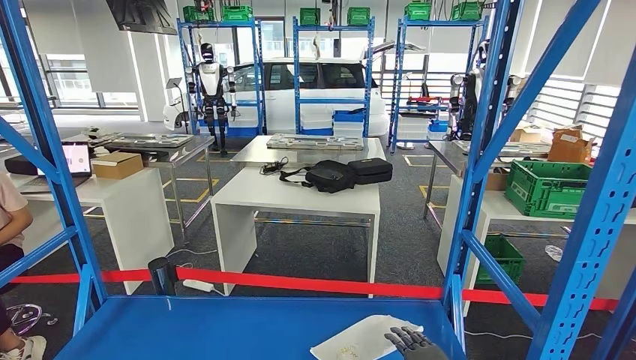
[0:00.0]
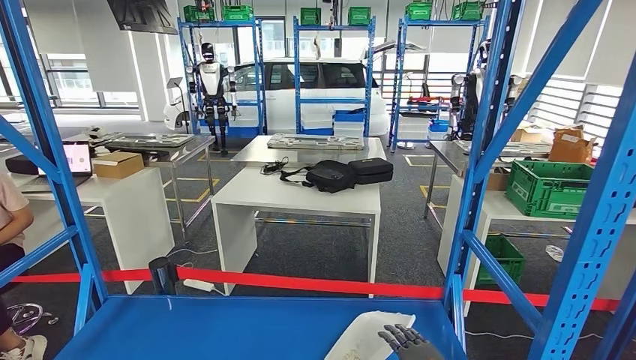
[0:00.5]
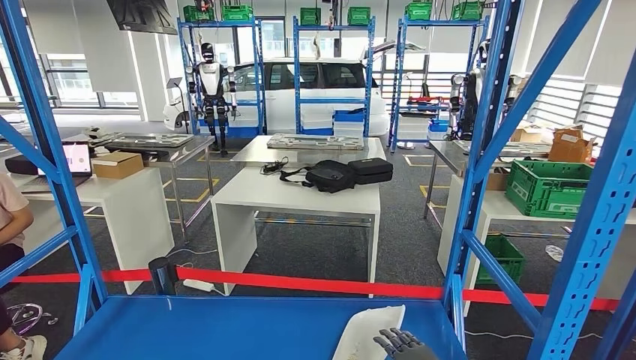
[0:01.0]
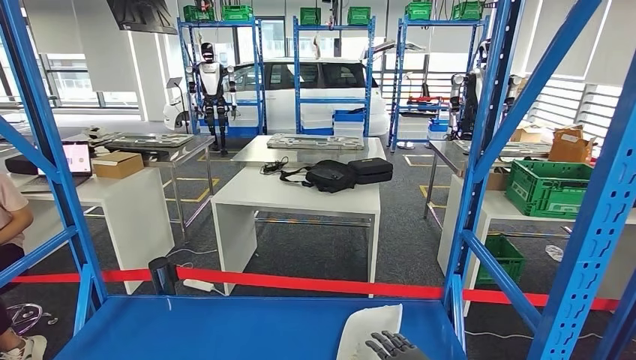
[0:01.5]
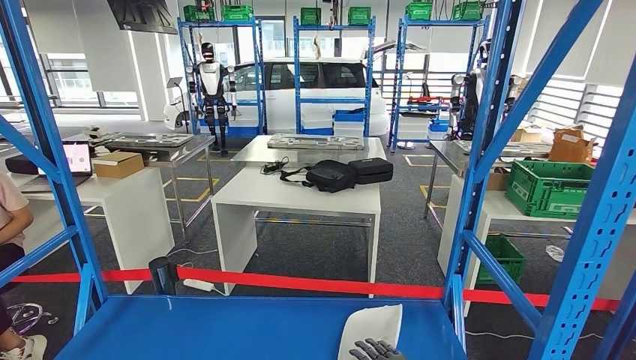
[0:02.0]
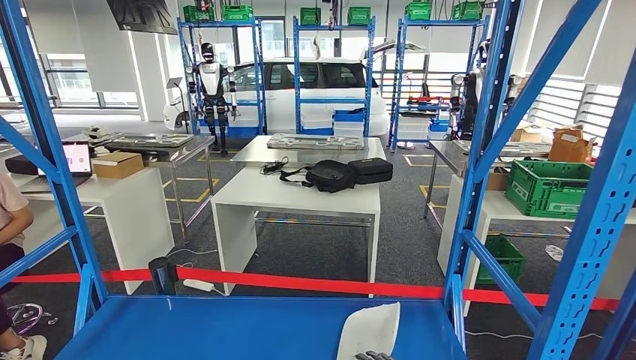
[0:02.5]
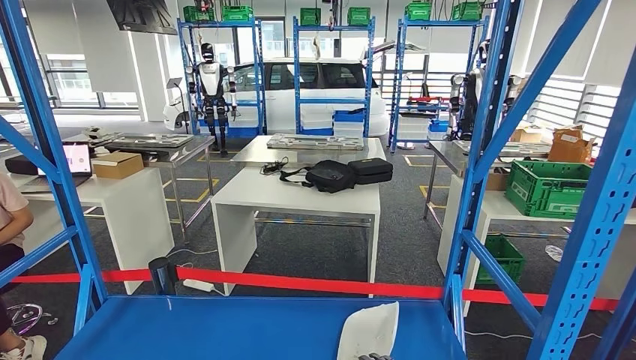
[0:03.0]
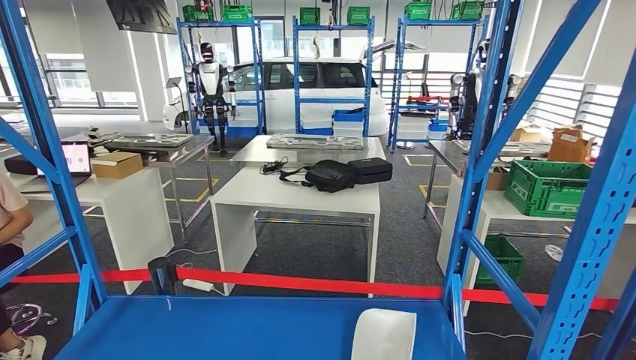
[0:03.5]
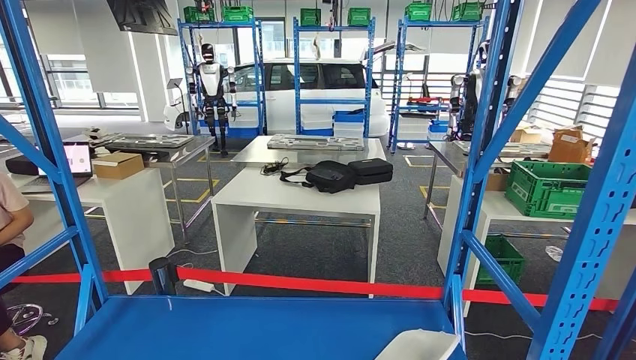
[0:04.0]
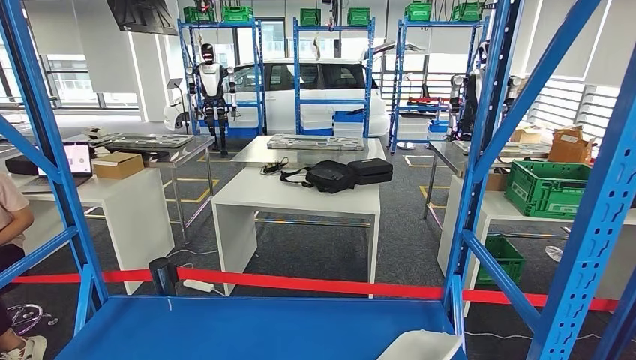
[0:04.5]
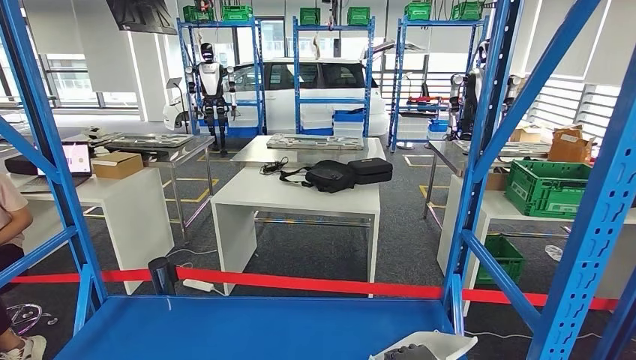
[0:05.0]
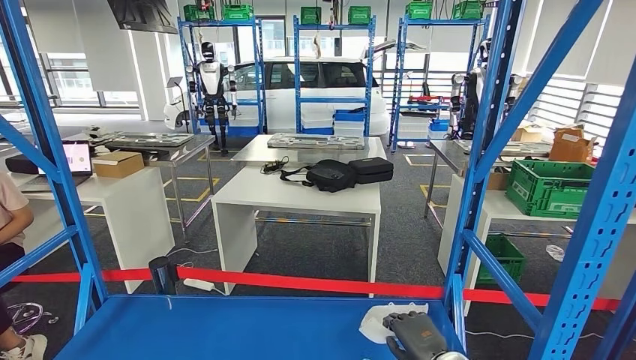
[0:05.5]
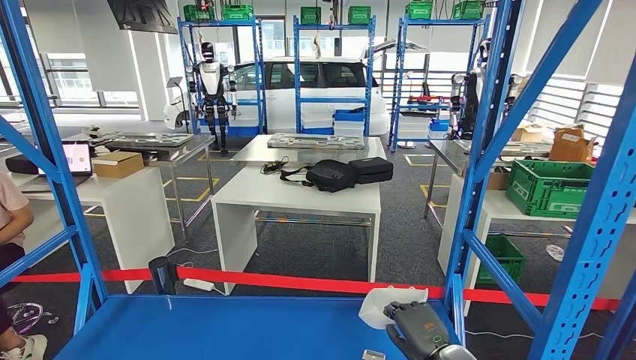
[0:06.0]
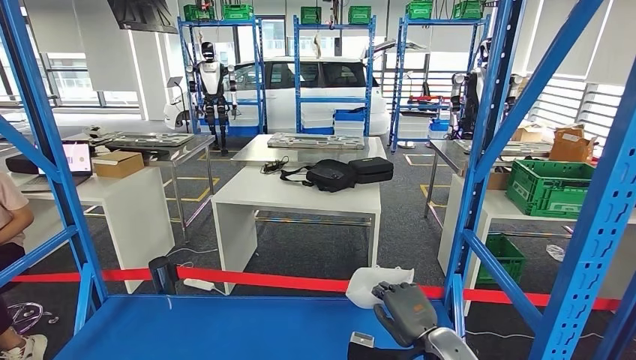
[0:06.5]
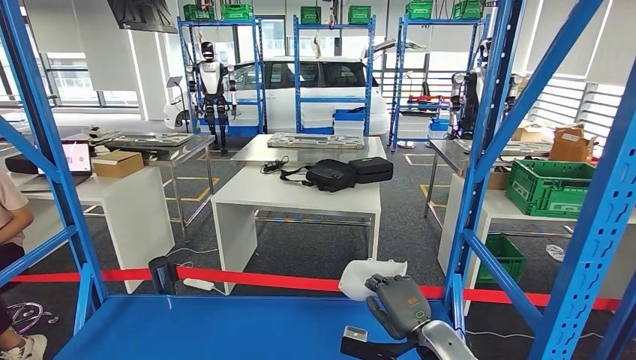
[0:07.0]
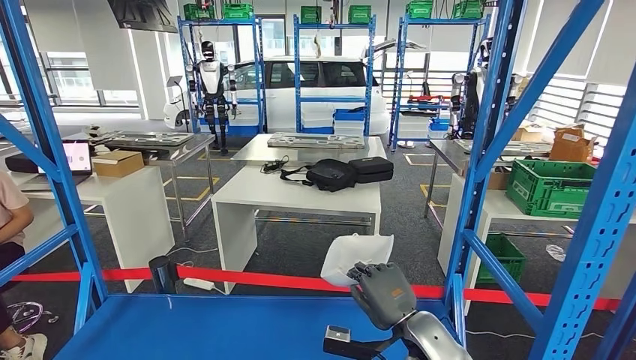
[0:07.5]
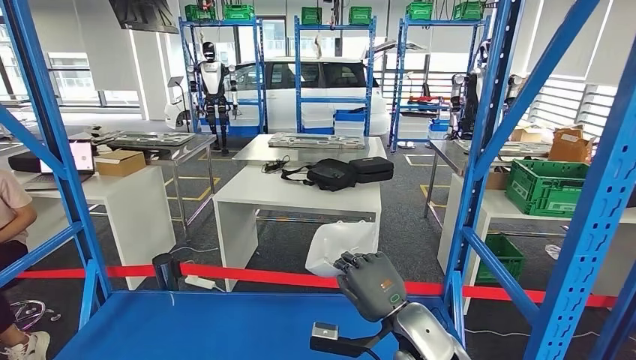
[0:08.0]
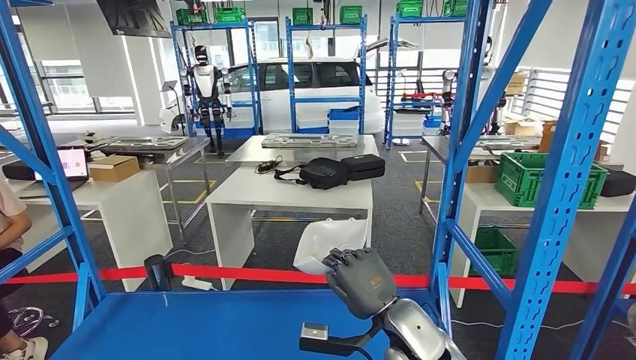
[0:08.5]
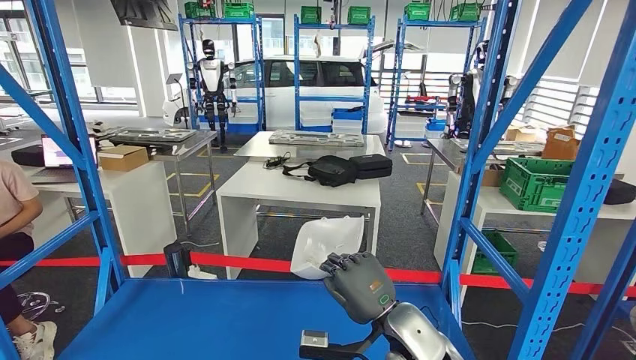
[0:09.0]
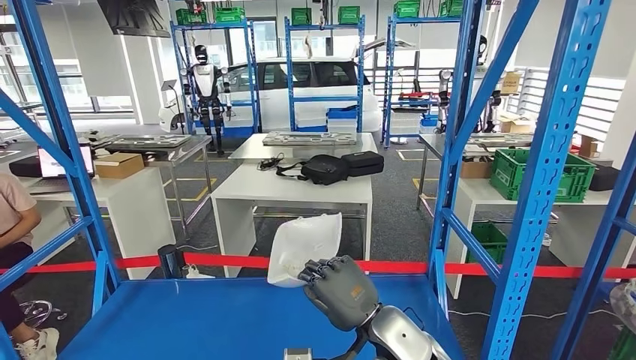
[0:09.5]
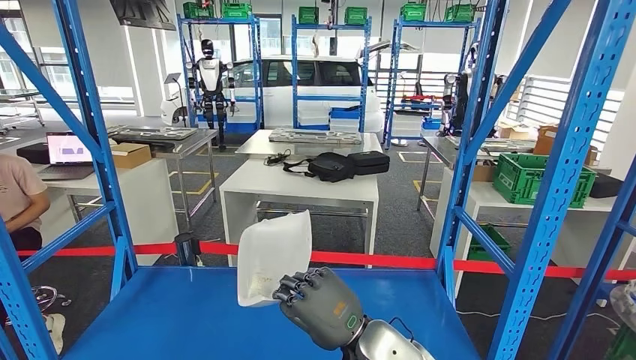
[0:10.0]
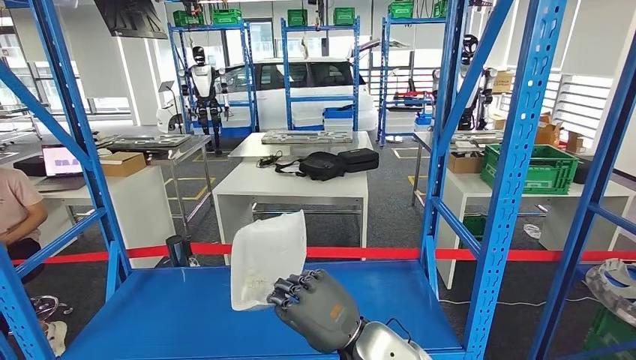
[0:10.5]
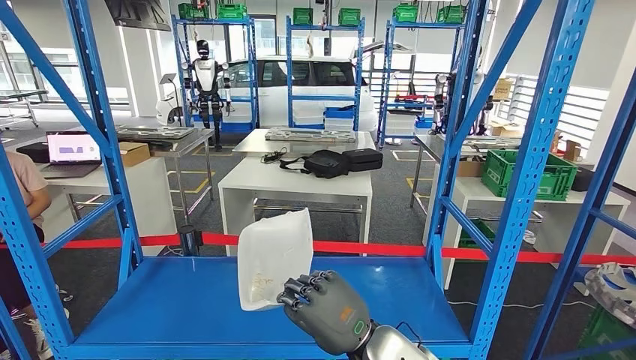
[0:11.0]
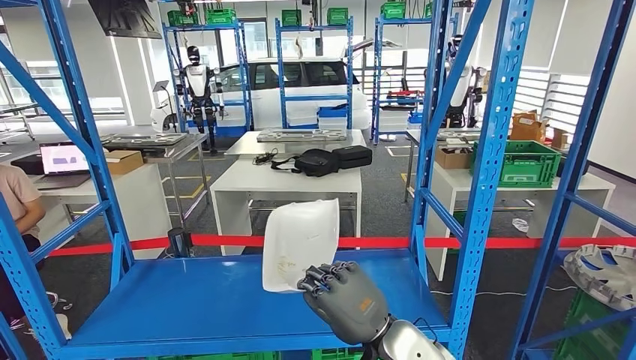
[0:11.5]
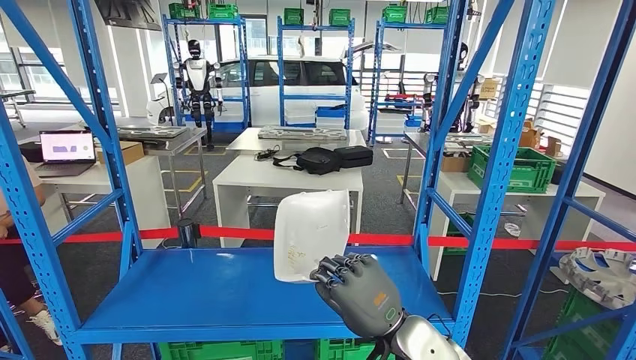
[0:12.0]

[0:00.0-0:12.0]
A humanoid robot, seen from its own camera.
Step, 0:00.0 to 0:06.5: Pick up the small parts from the shelf.
0:00.0 to 0:02.0: The right hand changes place by approximately 5 cm.
0:02.0 to 0:04.0: The hands stay close to where they were, moving slightly.
0:04.0 to 0:06.0: The right hand shifts some 5 cm upward.
0:06.0 to 0:08.0: The right hand shifts approximately 15 cm upward and to the left.

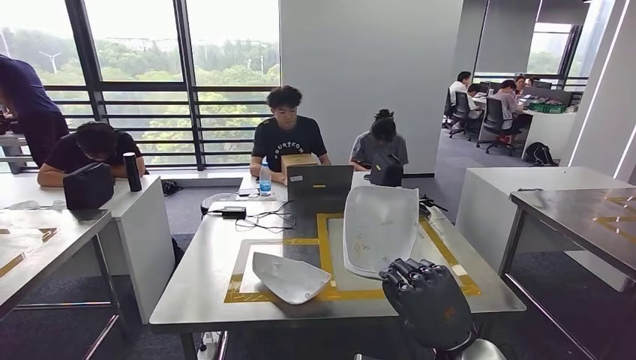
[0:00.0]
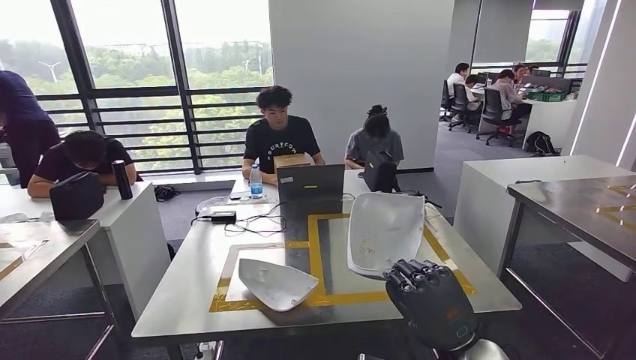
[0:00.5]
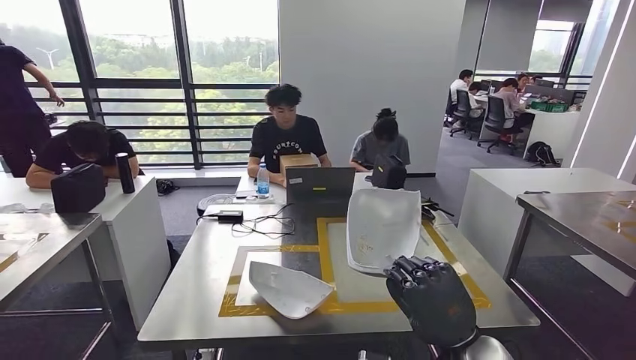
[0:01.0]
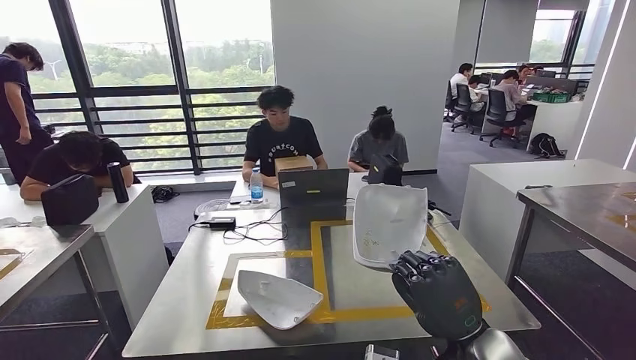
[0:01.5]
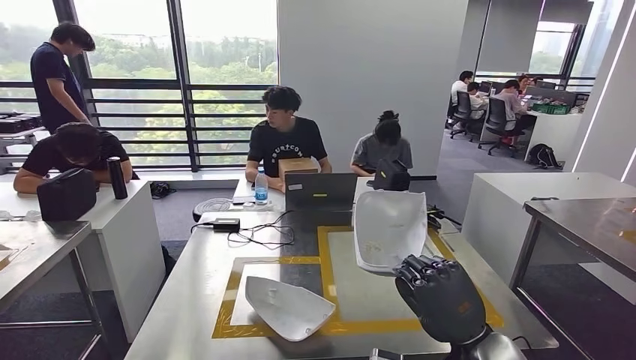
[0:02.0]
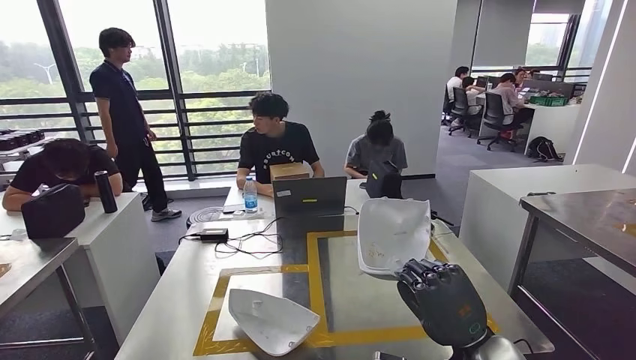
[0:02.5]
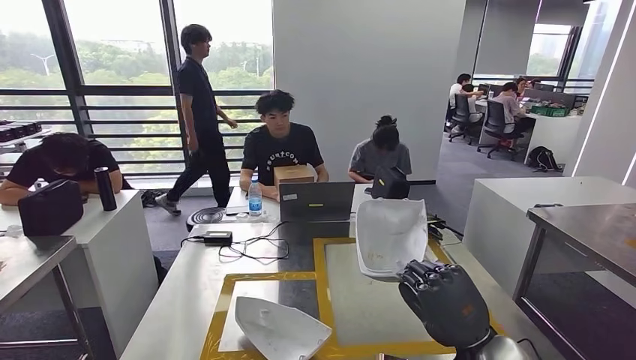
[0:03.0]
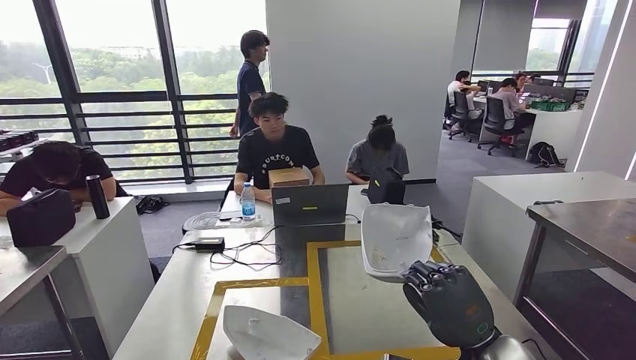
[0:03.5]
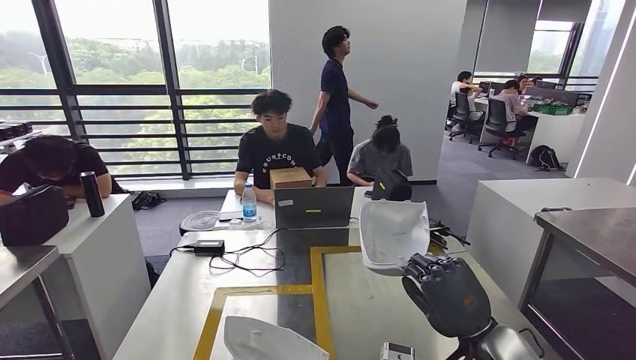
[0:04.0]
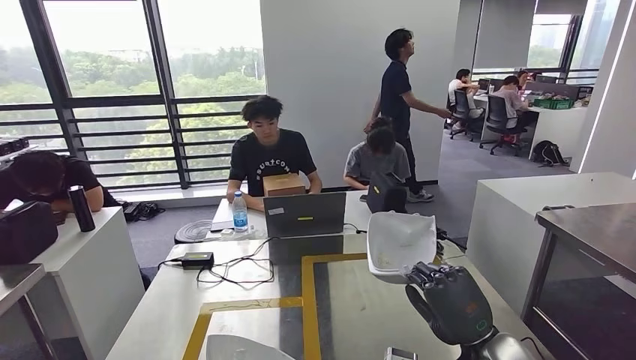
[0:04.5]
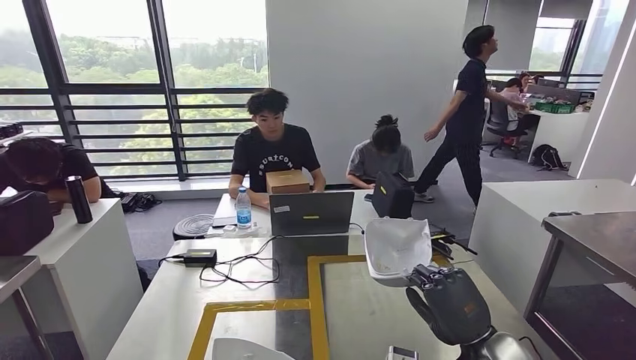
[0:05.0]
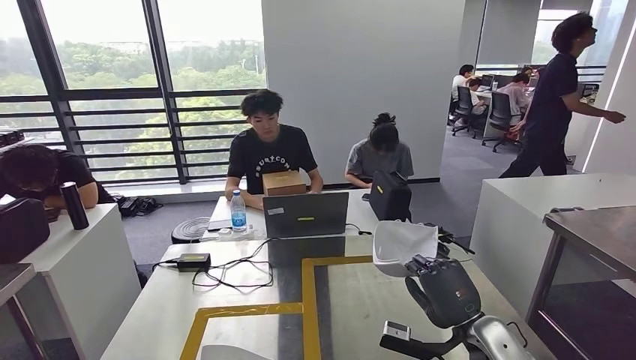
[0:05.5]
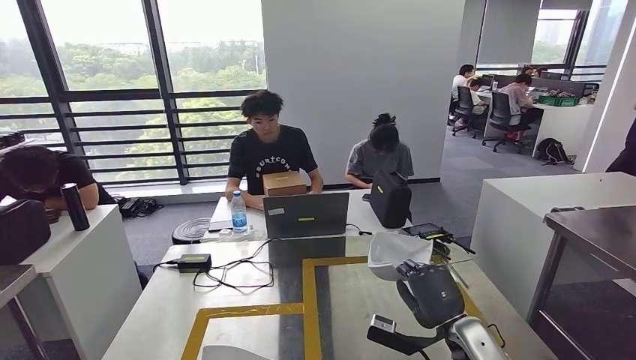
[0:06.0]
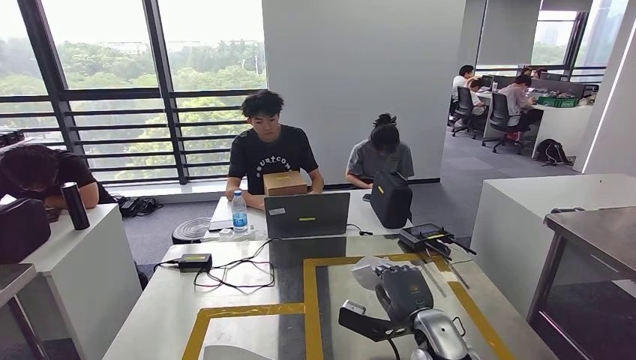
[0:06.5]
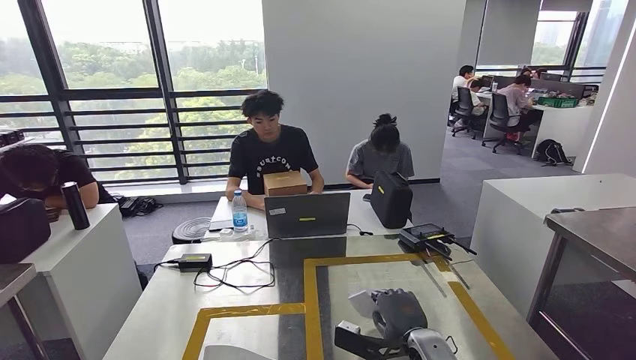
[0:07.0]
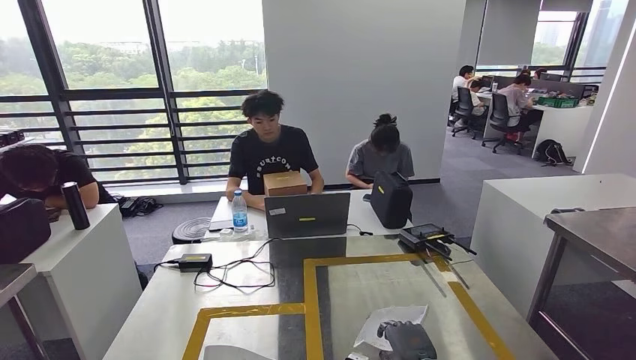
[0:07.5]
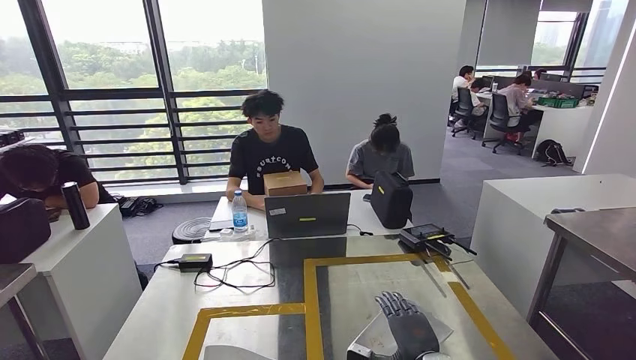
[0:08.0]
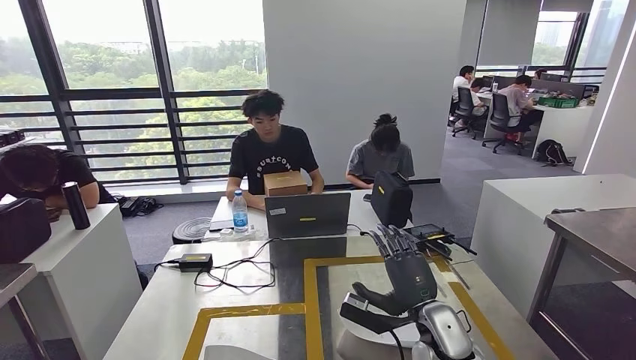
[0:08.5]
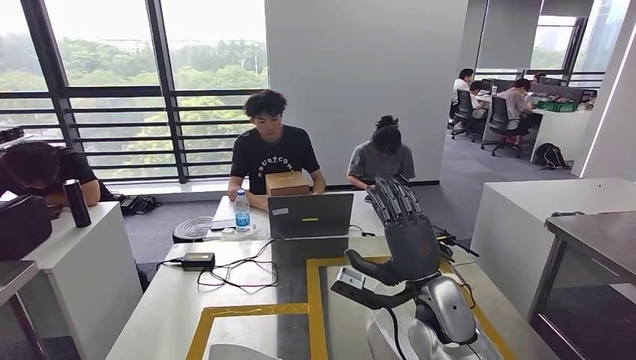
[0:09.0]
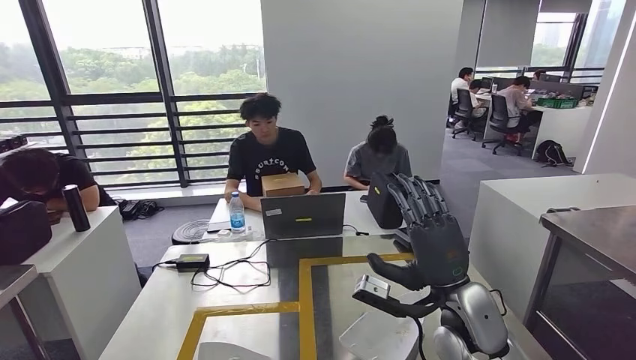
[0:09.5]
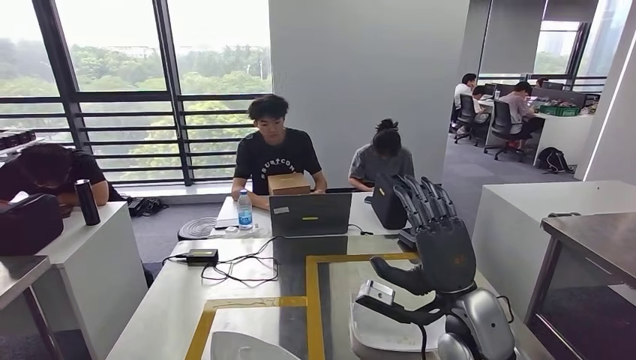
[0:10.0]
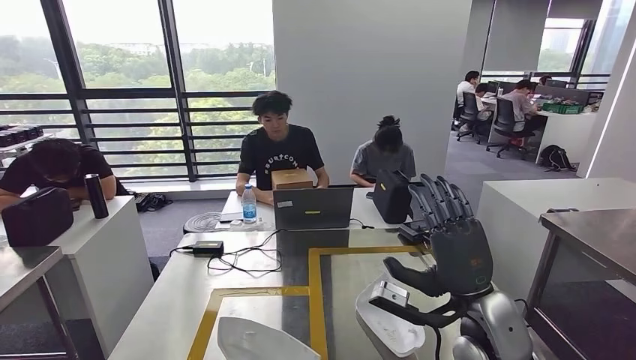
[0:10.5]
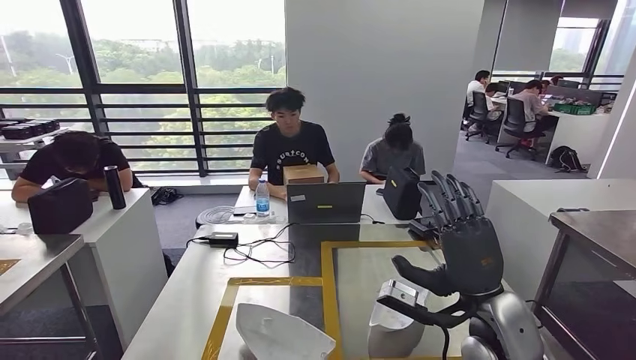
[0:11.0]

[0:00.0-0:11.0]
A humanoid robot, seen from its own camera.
Step, 0:00.0 to 0:07.5: Insert the small parts into the corresponding holes on the workbench.
0:05.5 to 0:07.5: The right hand travels downward and to the left by roughly 15 cm.
0:07.5 to 0:09.0: The right hand moves upward, about 20 cm.
